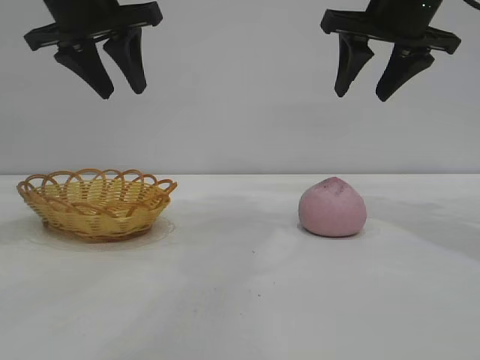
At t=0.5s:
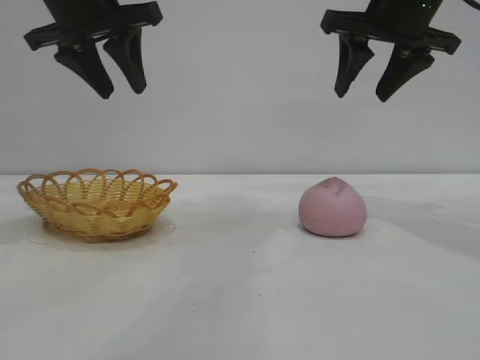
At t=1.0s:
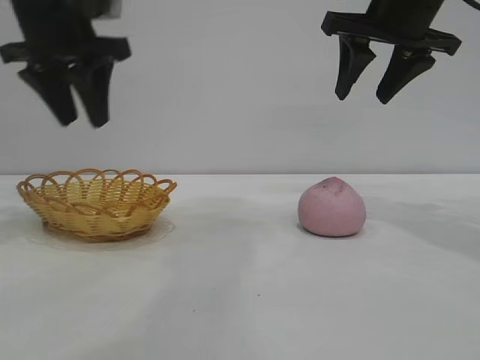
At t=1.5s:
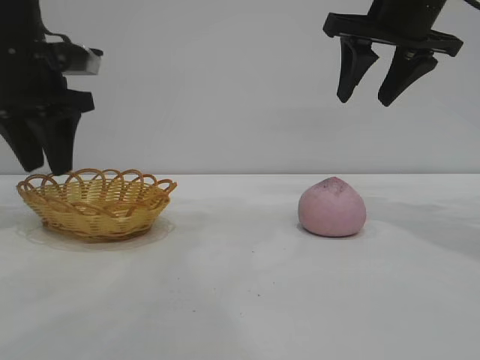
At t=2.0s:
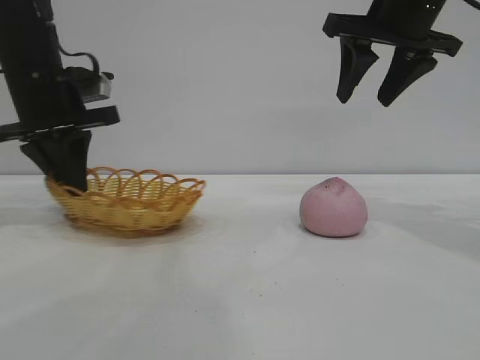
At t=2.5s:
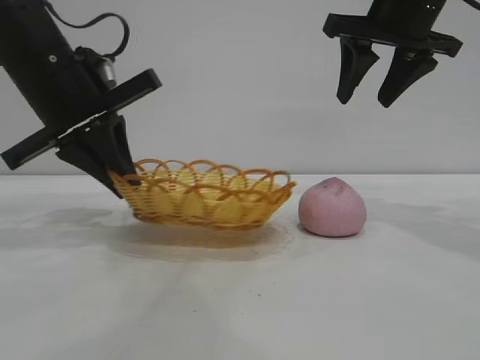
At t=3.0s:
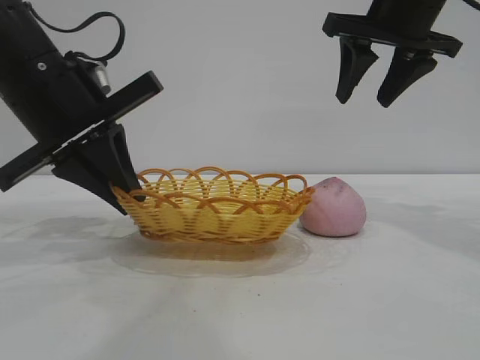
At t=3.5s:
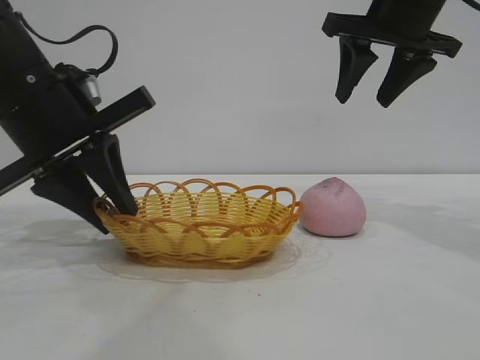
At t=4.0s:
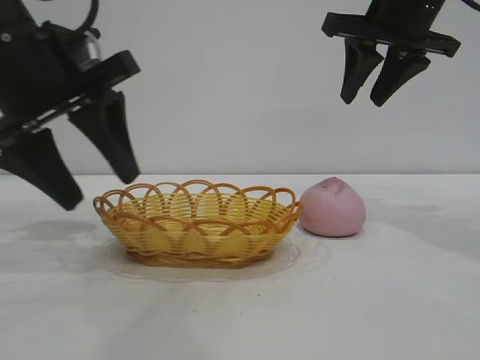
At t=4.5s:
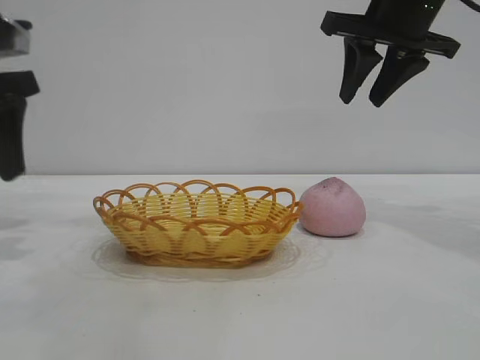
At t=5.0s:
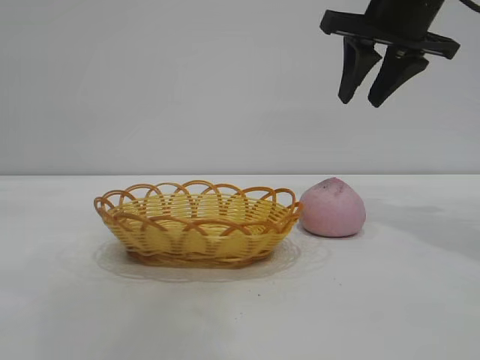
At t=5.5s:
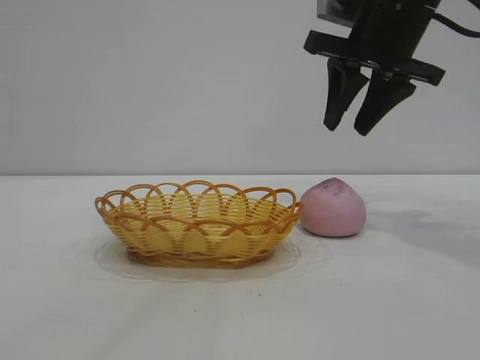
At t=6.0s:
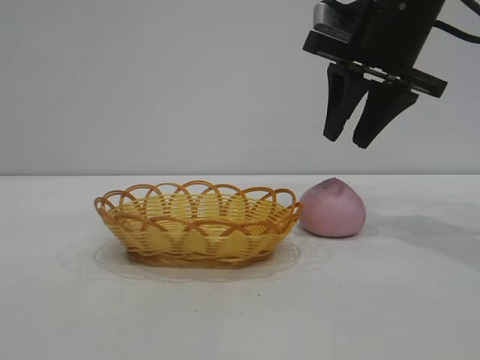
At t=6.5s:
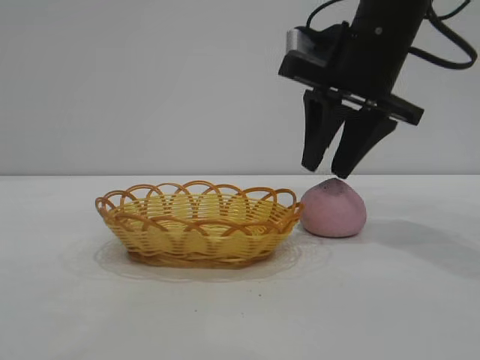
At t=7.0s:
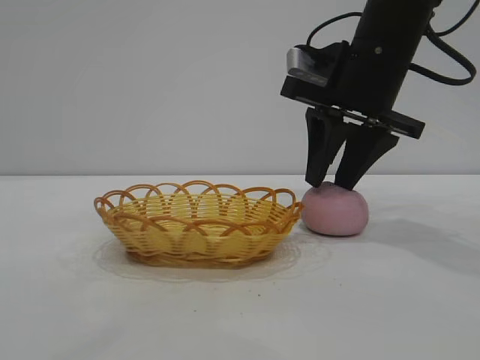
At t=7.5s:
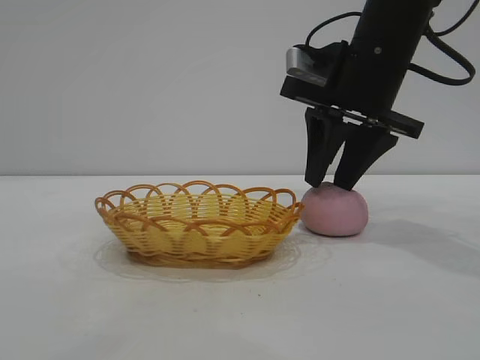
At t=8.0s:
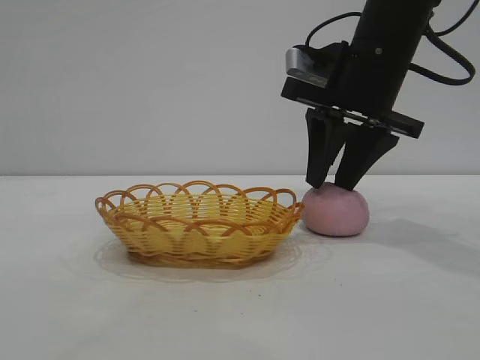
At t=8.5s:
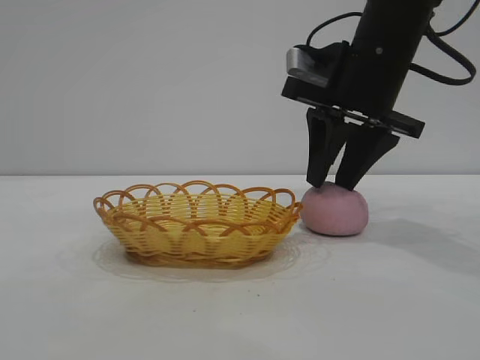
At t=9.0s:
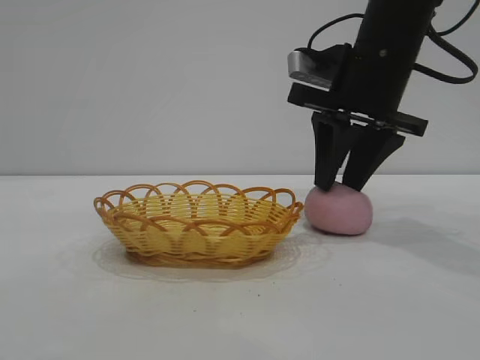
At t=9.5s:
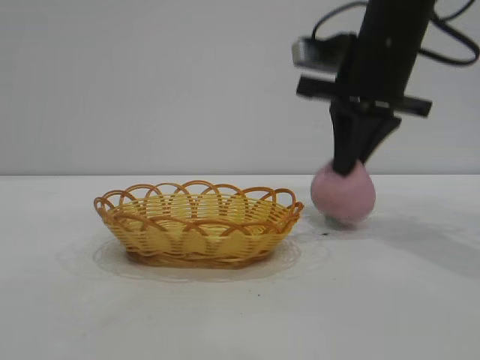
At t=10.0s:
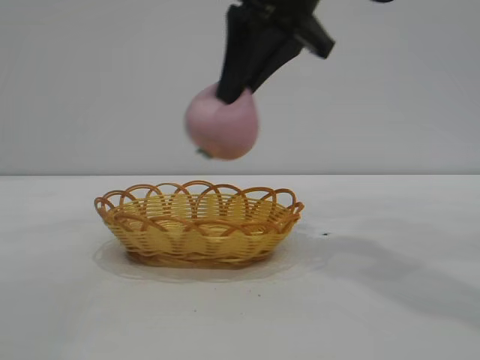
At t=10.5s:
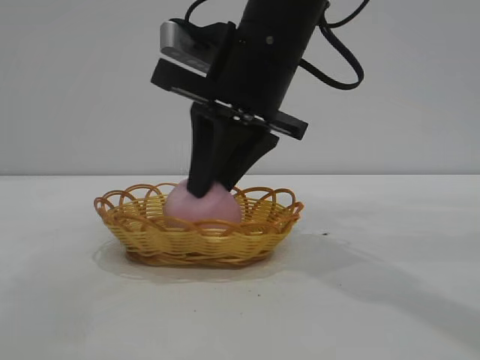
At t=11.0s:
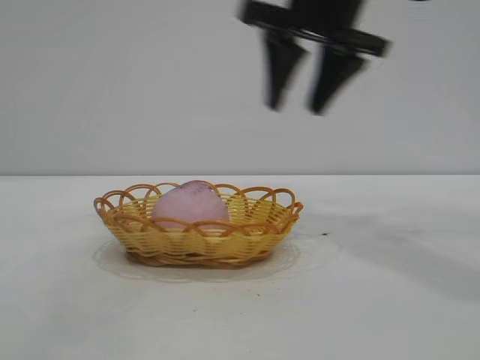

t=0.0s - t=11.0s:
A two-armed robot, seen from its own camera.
Task of the whole recording: pick up the peach and put it into the basket.
Step, t=0.0s - t=4.0s: Move the basket to the center of view.
Step, t=4.5s - t=9.5s: Pick up the peach.
Step, t=10.0s - t=10.5s: place the peach into the basket.

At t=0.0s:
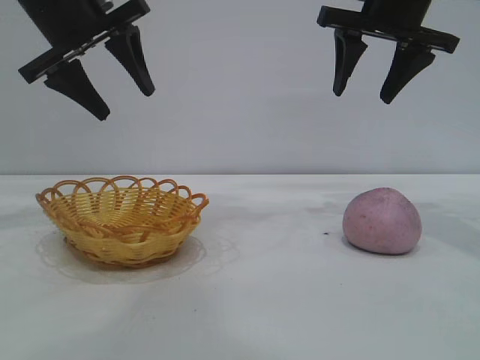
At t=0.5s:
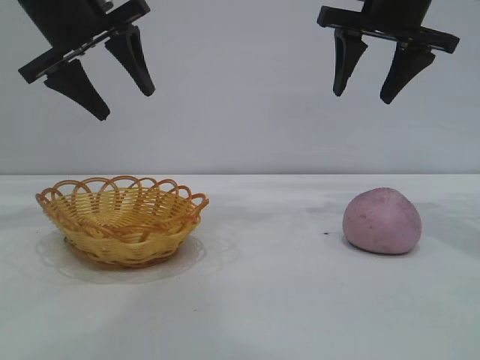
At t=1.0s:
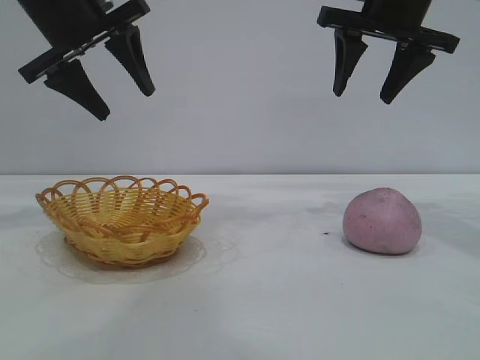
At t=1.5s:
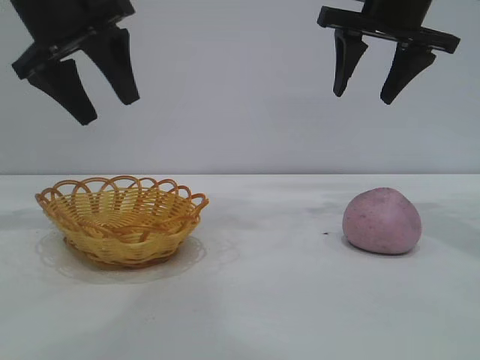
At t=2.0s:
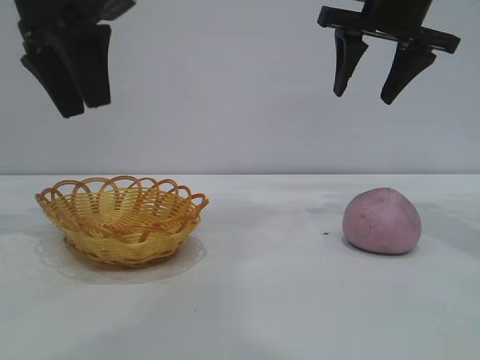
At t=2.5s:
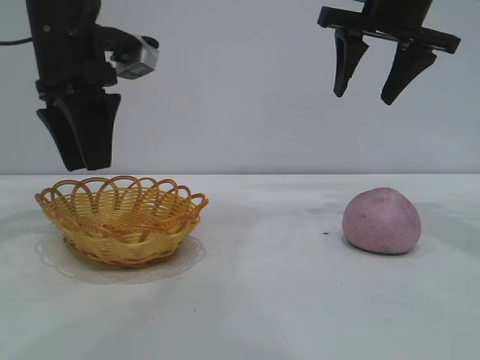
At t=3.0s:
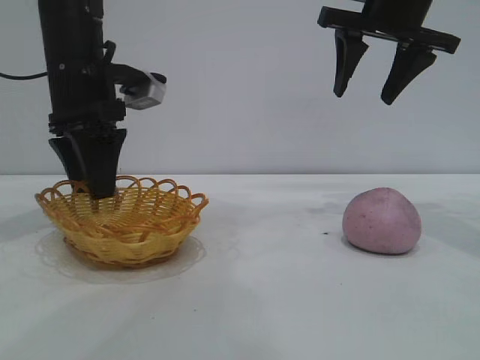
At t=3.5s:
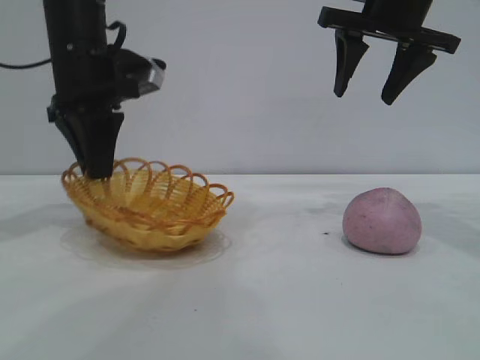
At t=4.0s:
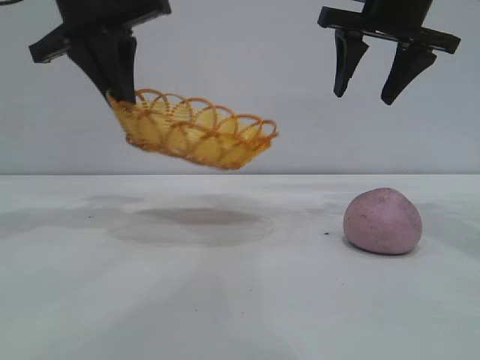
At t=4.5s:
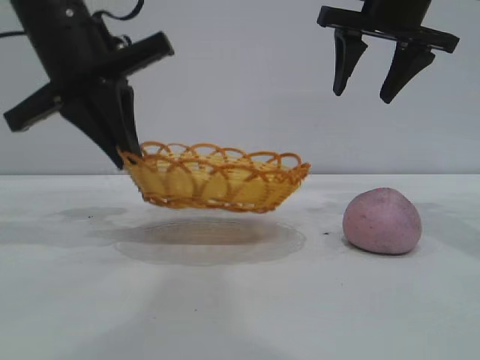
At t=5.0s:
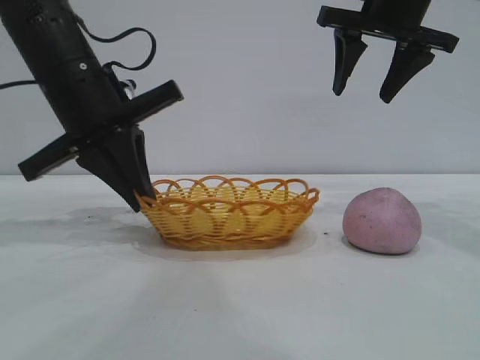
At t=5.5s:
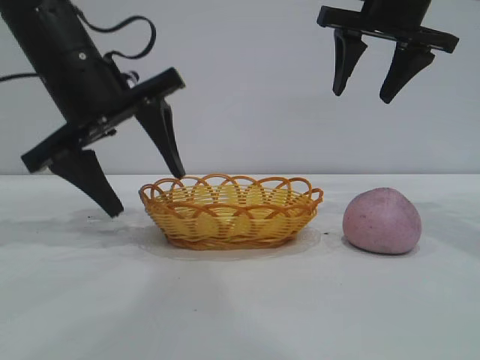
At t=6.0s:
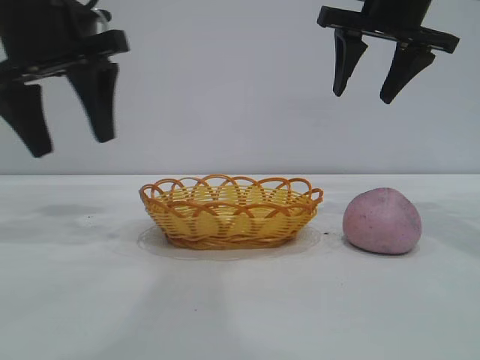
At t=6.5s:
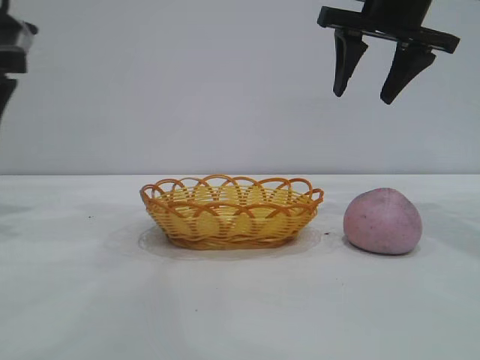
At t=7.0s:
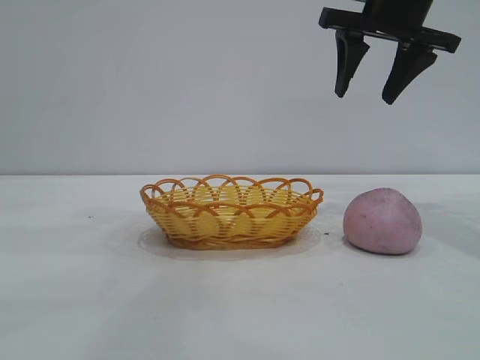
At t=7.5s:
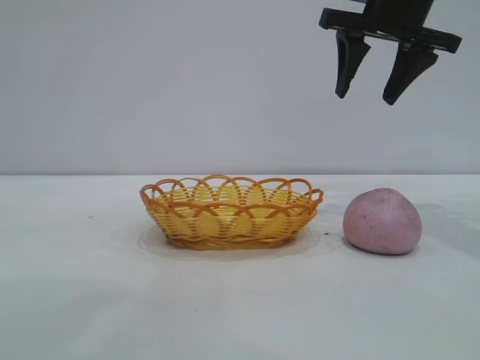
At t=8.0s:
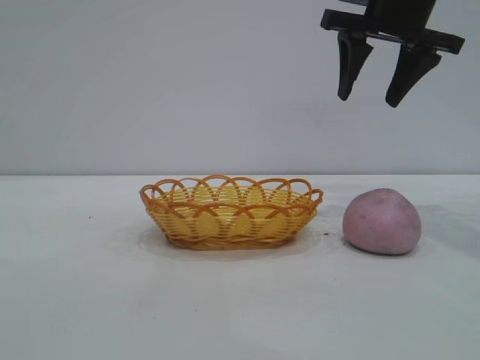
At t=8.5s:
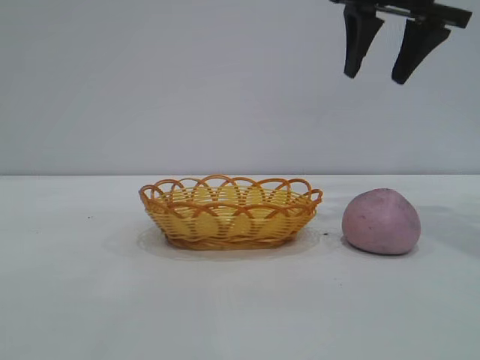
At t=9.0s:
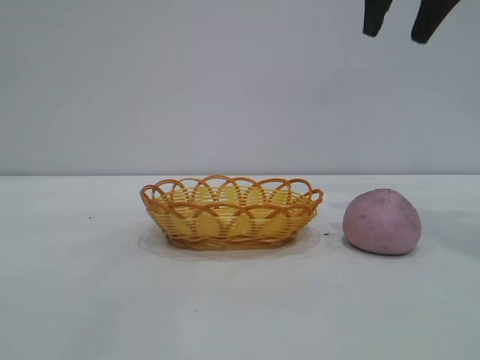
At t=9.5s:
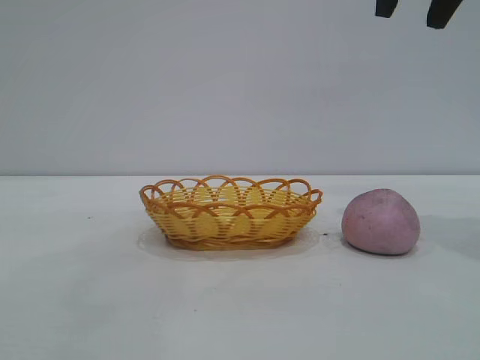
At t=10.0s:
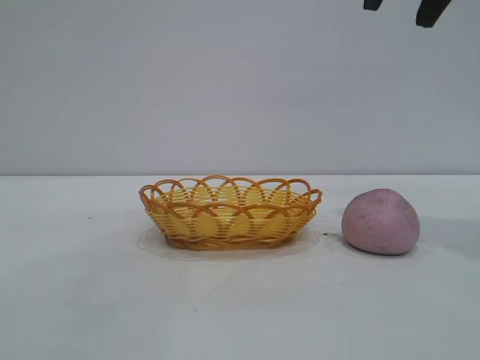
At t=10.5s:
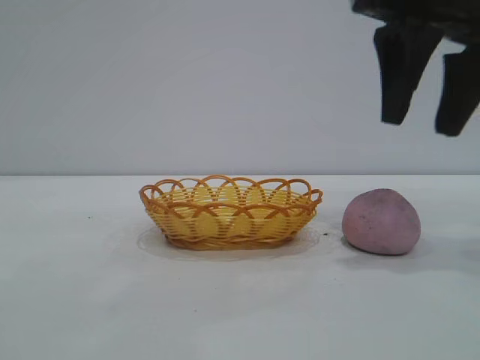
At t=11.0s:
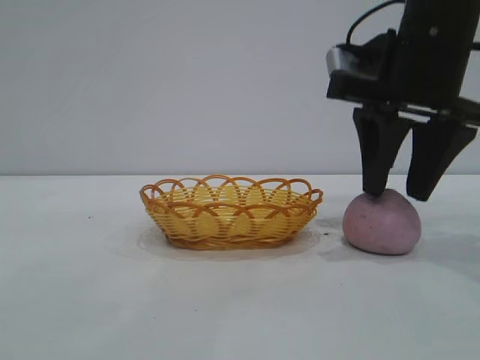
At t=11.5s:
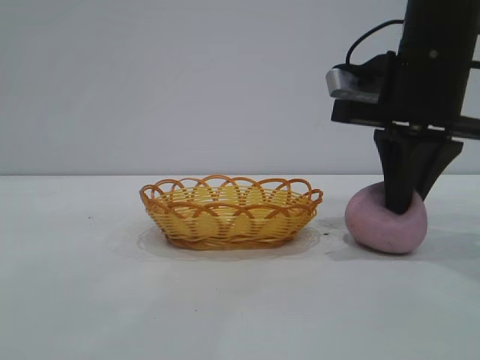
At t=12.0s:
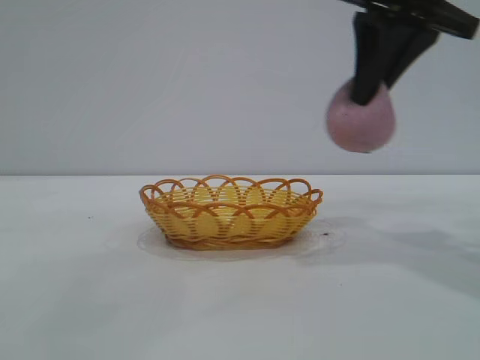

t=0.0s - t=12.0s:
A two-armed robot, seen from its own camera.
Task of the whole recording: pick up the peach and put it into the basket.
Step, t=0.0s - t=5.5s: Move the basket to the center of view.
Step, t=6.0s - t=11.5s: Pick up the peach.

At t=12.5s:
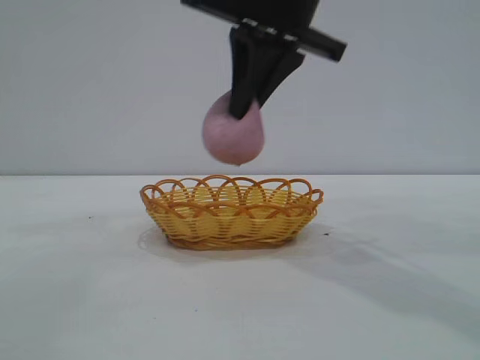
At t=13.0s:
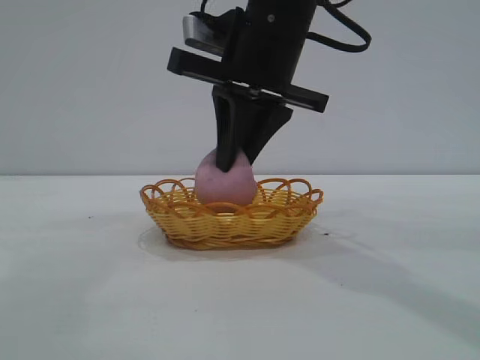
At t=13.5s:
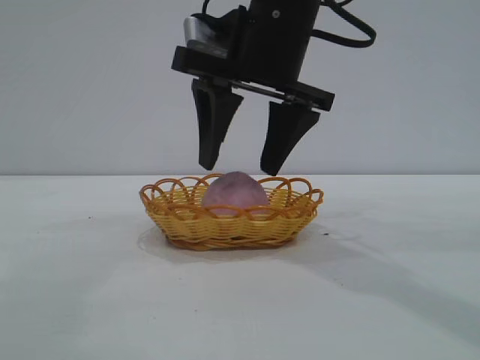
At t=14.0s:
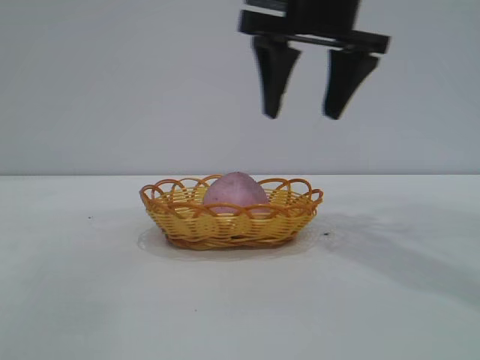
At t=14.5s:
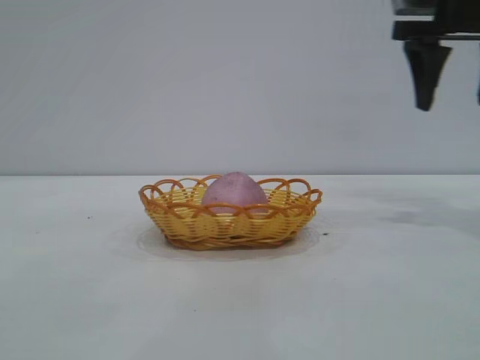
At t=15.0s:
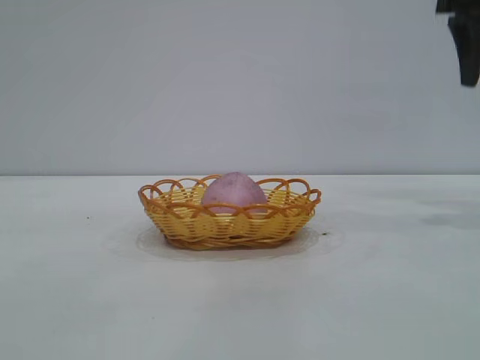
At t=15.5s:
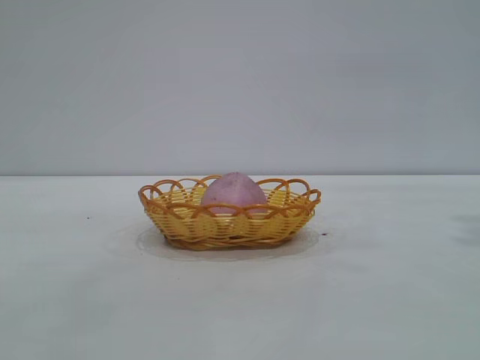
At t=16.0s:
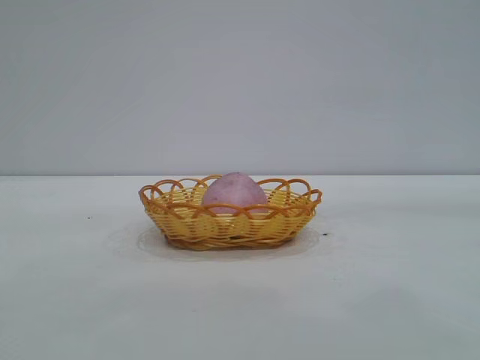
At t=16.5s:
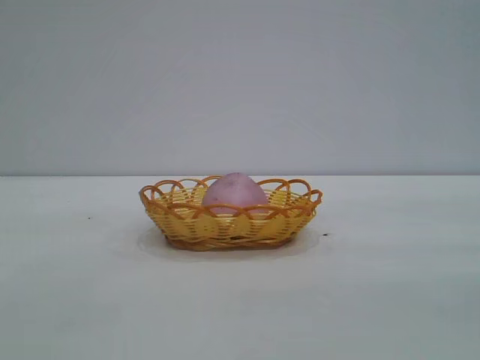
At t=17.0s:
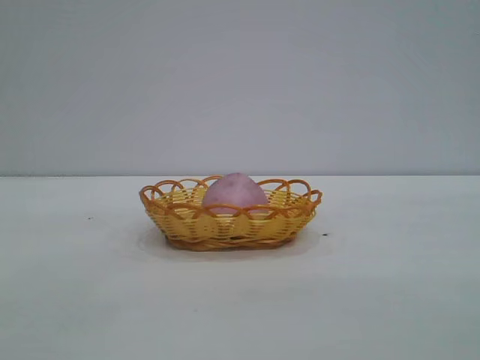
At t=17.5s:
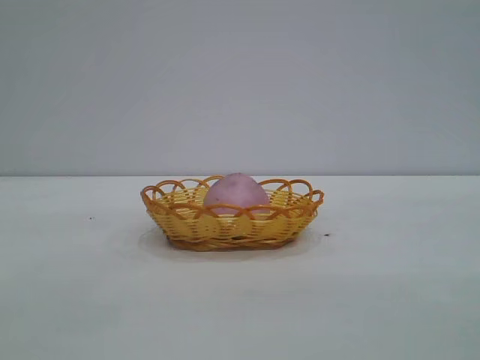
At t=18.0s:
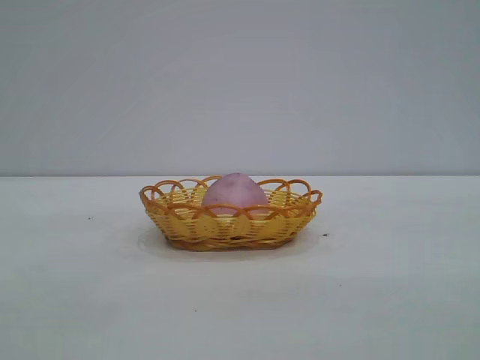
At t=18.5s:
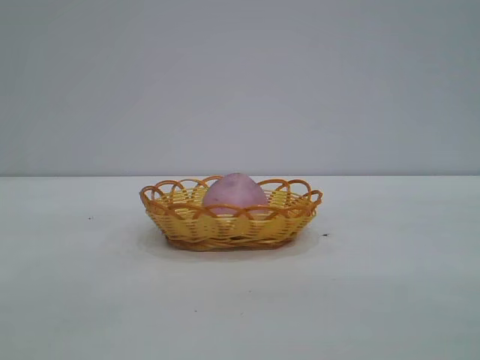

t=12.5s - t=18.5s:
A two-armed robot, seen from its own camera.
Task of the whole recording: pick up the peach and put it into the basket.
Step, t=12.5s - t=14.0s: place the peach into the basket.
